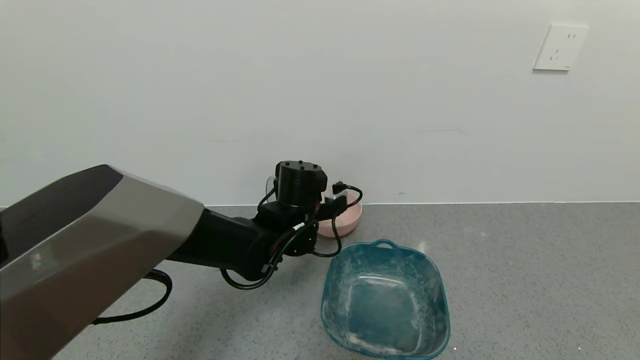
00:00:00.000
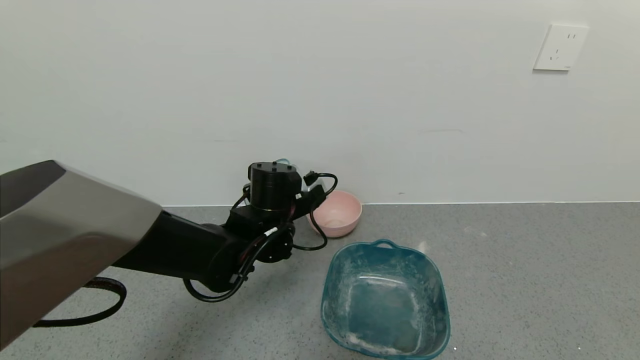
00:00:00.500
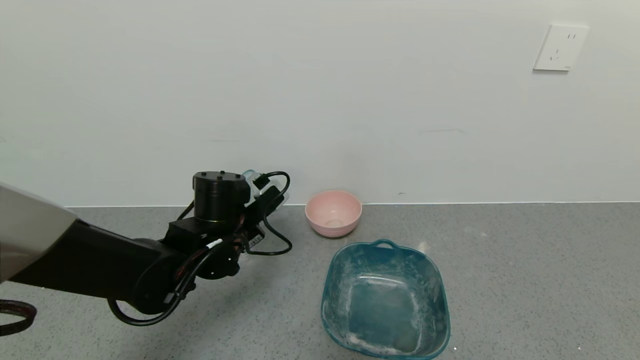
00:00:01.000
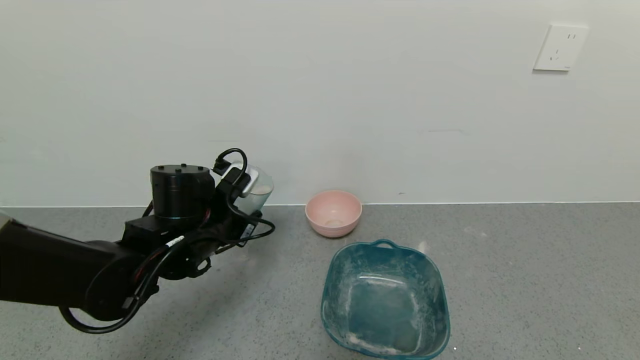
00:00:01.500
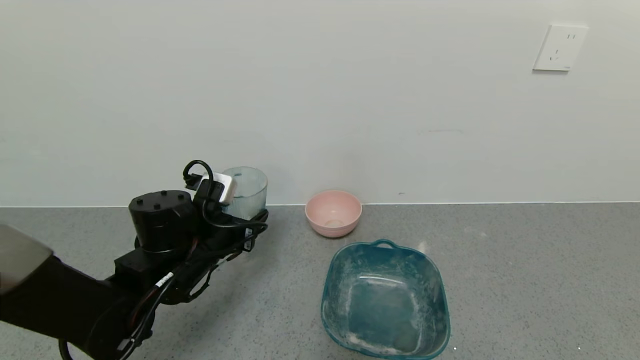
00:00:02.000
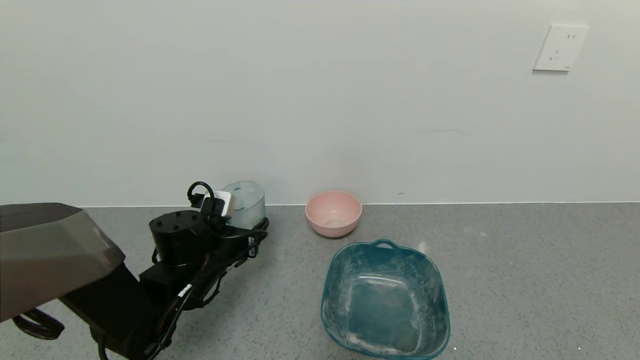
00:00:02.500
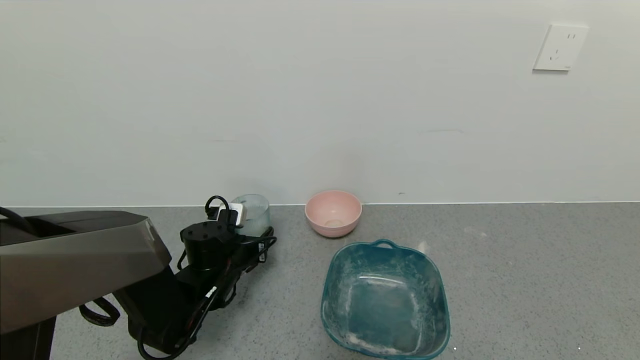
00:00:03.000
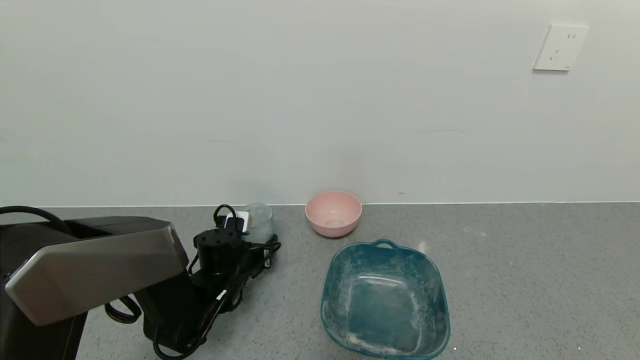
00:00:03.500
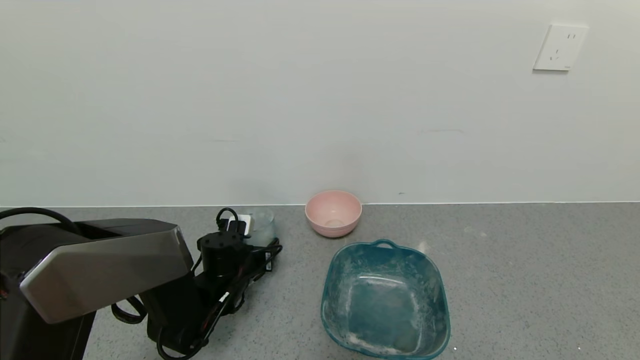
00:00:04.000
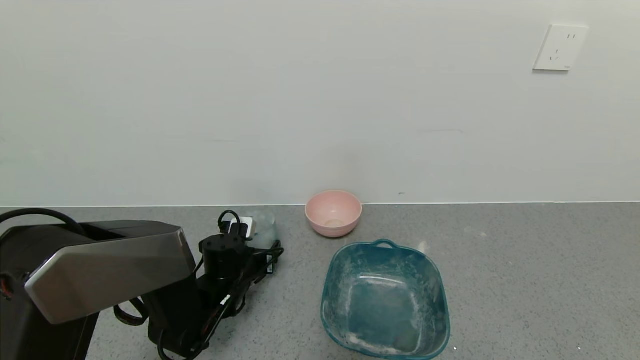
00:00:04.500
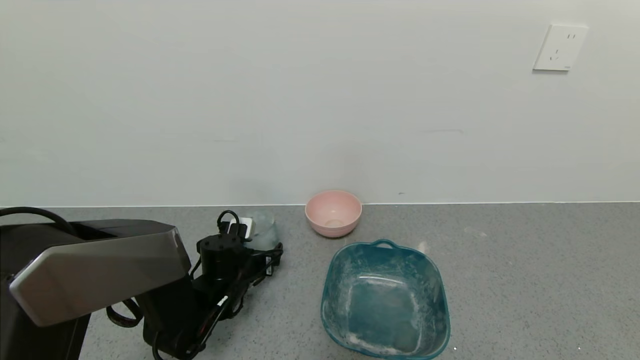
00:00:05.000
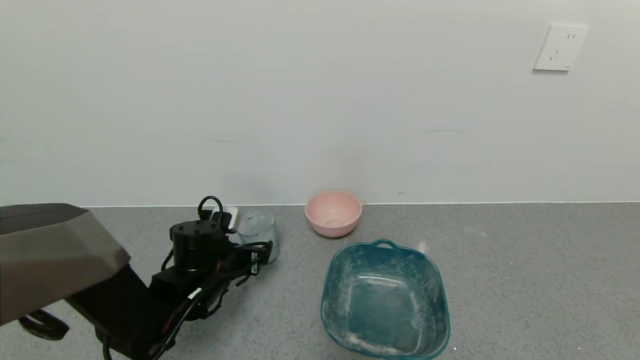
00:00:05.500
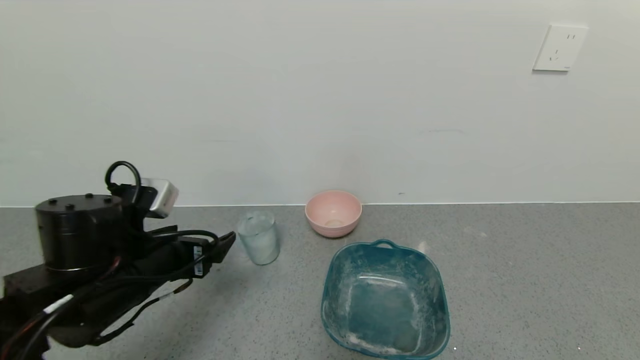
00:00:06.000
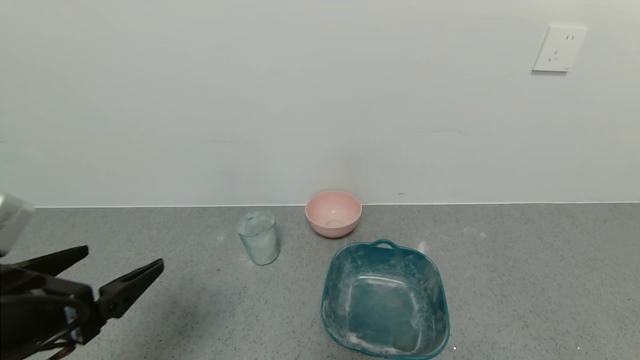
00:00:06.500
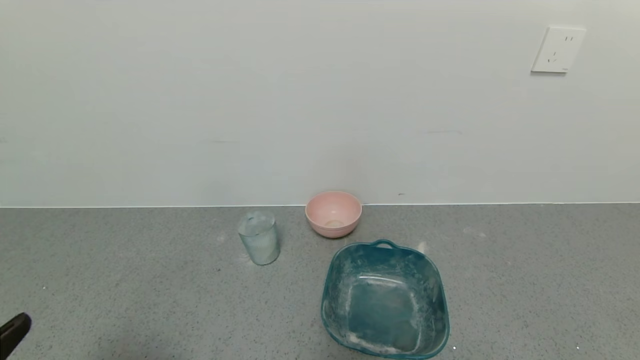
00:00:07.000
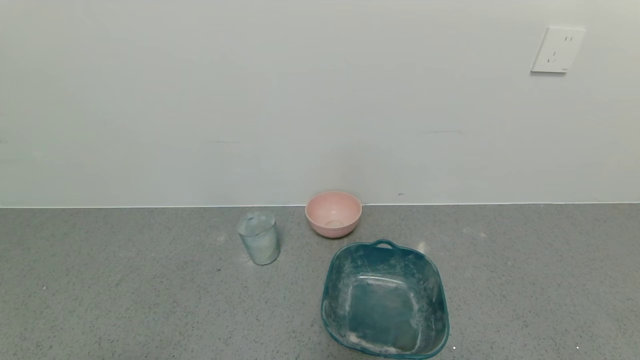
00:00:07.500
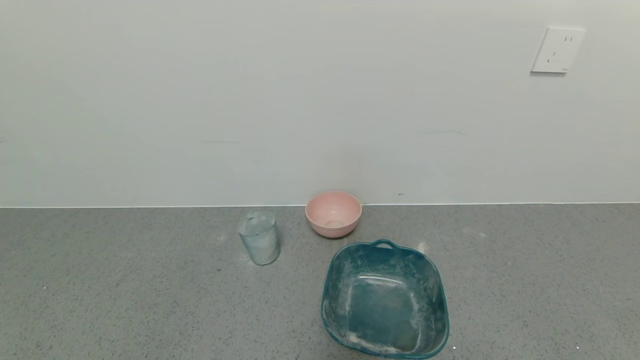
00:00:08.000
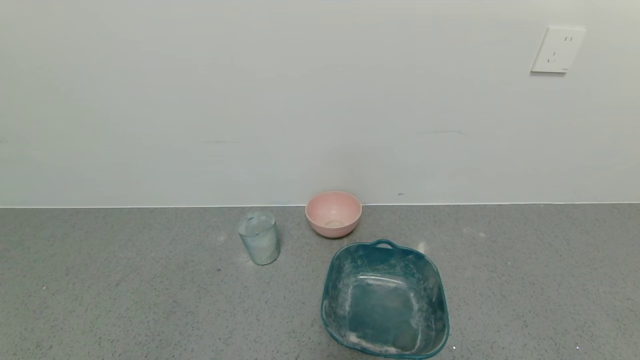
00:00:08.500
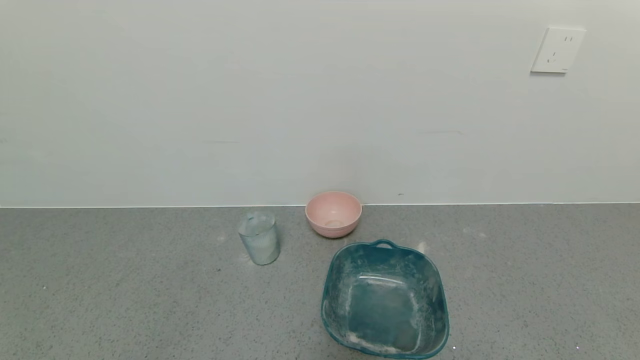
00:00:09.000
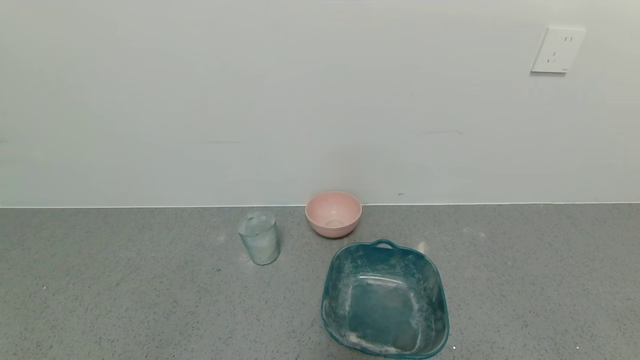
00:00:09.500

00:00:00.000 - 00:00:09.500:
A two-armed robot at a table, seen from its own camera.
Task of the whole recording: use a gripper to pick up the cup and pour the powder into a bowl or tray.
Step, 00:00:00.000 - 00:00:05.500: Place the glass cup down with the left gripper.
00:00:00.000 - 00:00:02.000: The left gripper heads to the left and backward, covering roughly 15 cm.
00:00:02.000 - 00:00:04.000: The left gripper is displaced downward and forward by about 15 cm.
00:00:04.000 - 00:00:05.500: The left gripper goes about 5 cm upward, and opens up.
00:00:05.500 - 00:00:07.500: The left gripper is displaced backward by approximately 35 cm.
